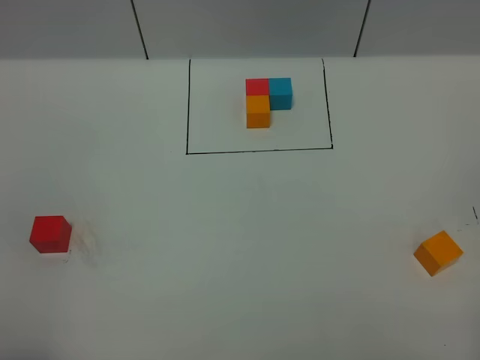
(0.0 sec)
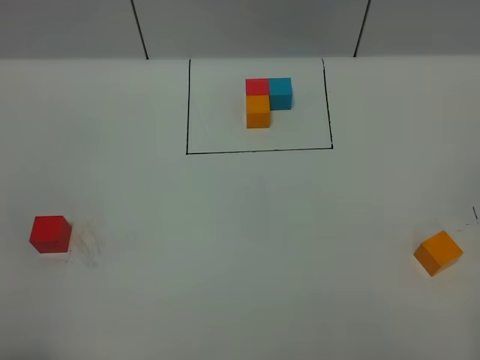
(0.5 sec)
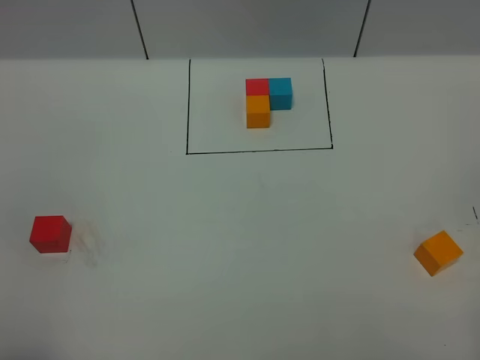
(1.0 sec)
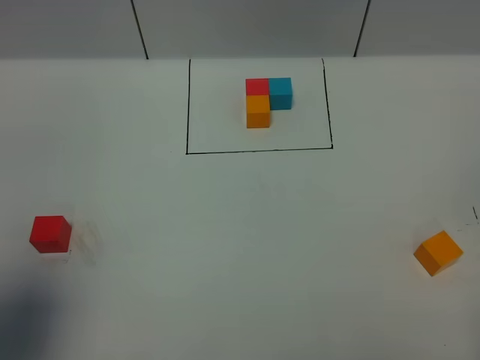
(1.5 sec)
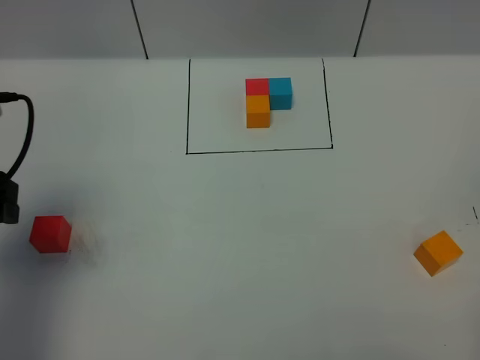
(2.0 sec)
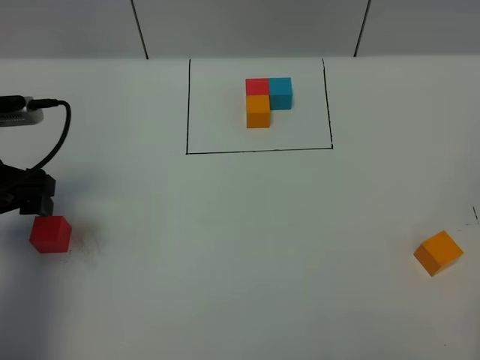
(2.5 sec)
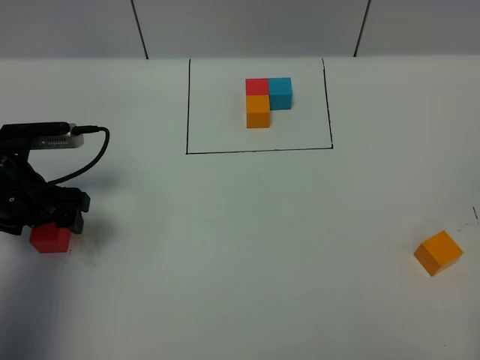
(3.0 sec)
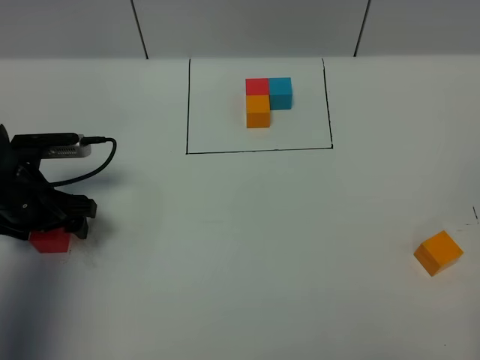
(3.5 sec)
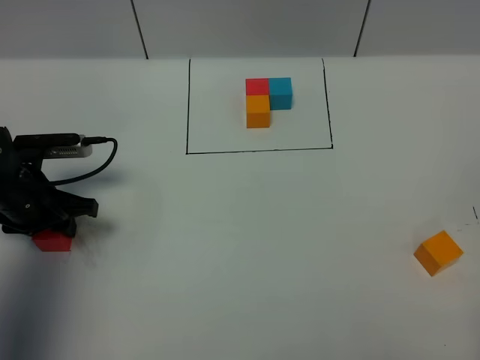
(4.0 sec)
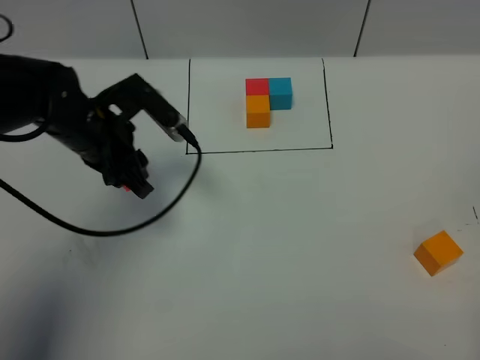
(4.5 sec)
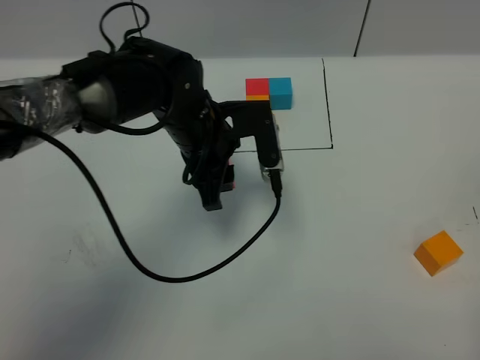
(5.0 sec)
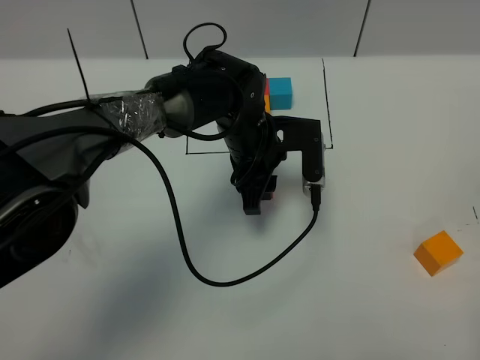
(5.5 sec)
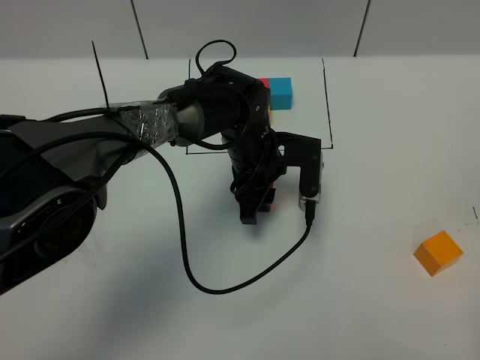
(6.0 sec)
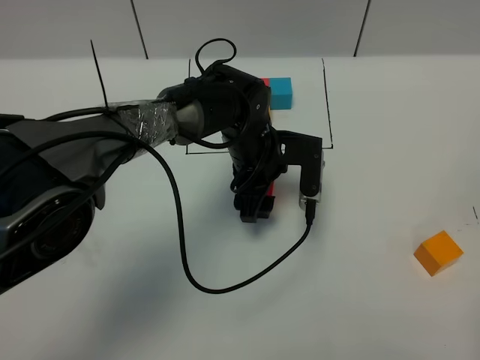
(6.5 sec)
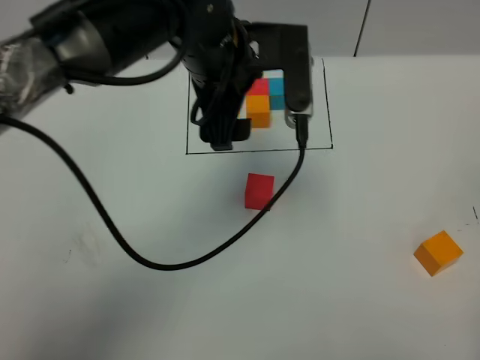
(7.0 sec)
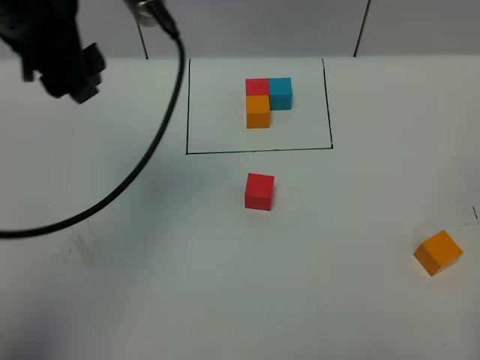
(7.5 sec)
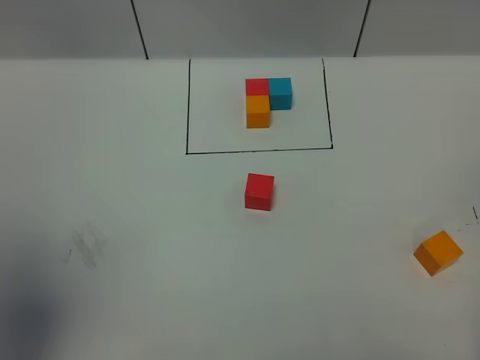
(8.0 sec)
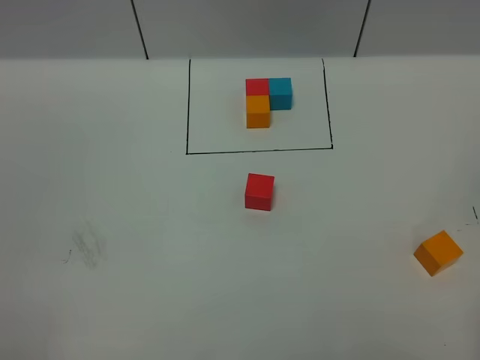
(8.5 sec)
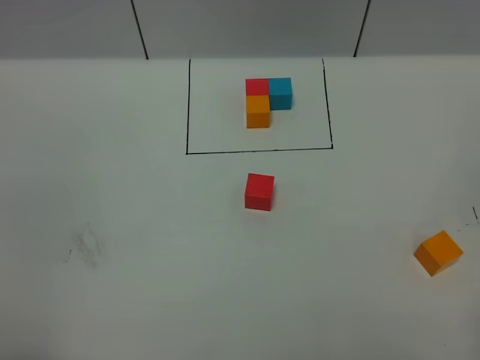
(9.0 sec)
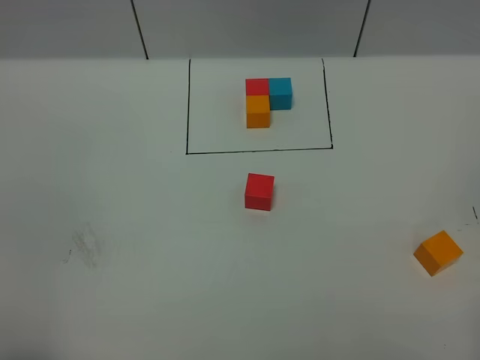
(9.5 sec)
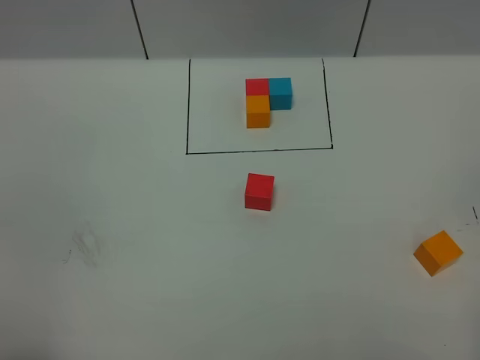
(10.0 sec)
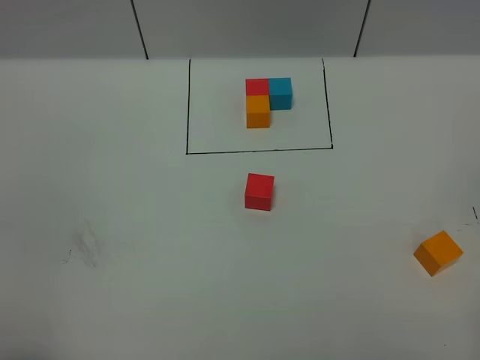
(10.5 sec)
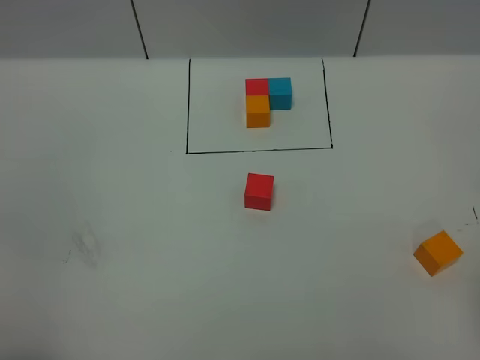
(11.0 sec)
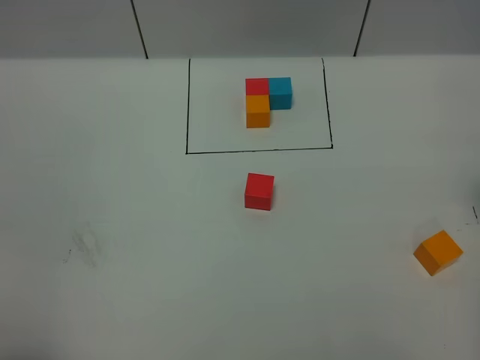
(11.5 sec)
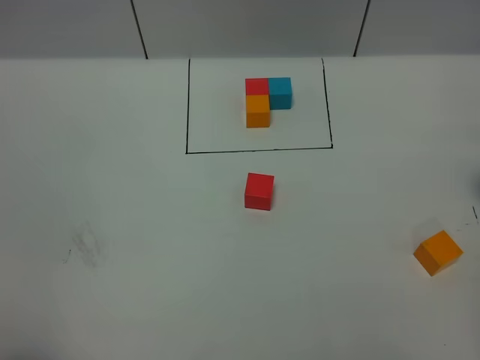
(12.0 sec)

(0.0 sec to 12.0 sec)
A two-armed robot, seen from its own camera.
Task of the whole recording: According to the building block template in front, assemble the scattered blocks together.
Step, 2.0 sec - 6.5 sec: Put the red cube in the center of the table.
0.0 sec - 2.0 sec: The left gripper moves forward, approximately 25 cm.
2.0 sec - 4.0 sec: The left gripper travels downward and forward by approximately 15 cm, and closes.
4.0 sec - 6.0 sec: The left gripper heads to the right, covering approximately 30 cm.
6.0 sec - 8.0 sec: The left gripper shifts roughly 50 cm upward, to the left and backward, and opens its fingers.
8.0 sec - 10.0 sec: The left gripper is displaced downward and backward by roughly 20 cm.

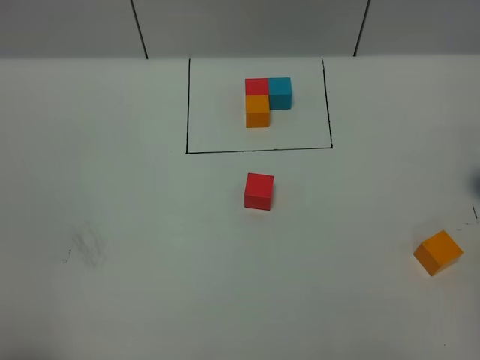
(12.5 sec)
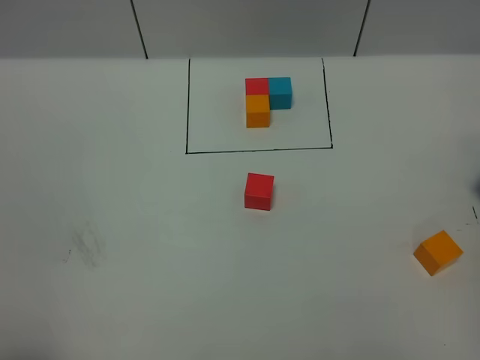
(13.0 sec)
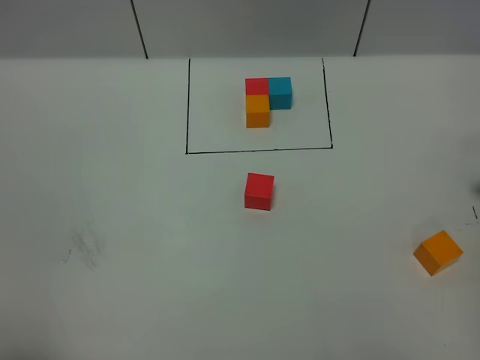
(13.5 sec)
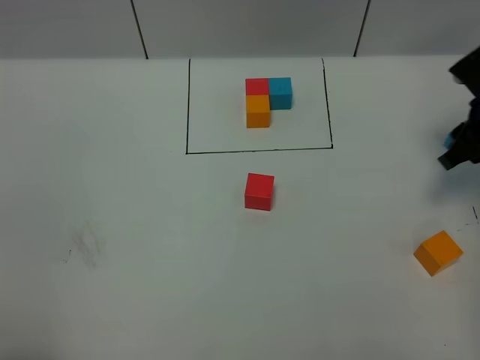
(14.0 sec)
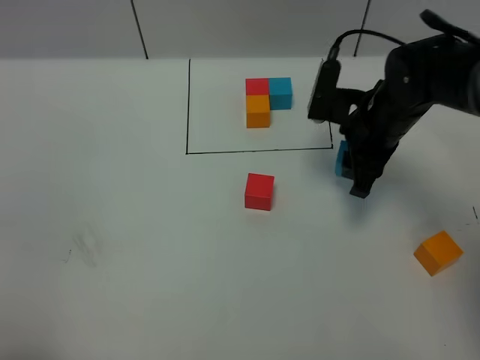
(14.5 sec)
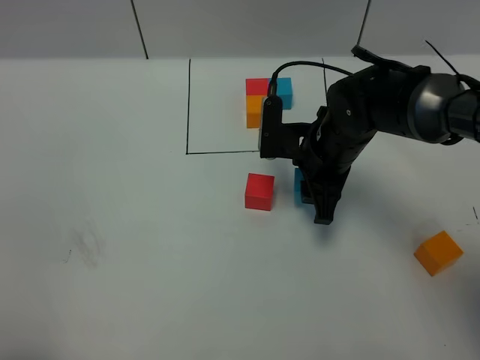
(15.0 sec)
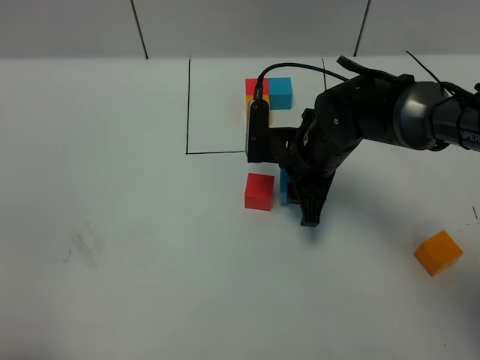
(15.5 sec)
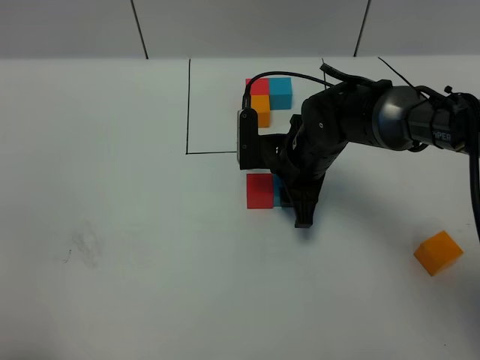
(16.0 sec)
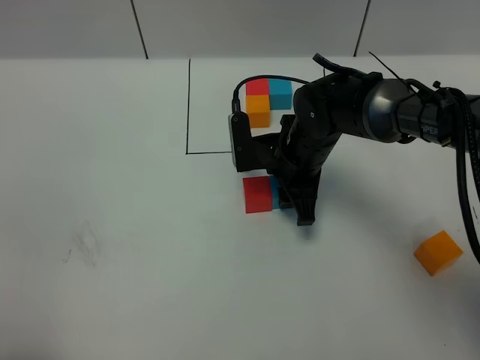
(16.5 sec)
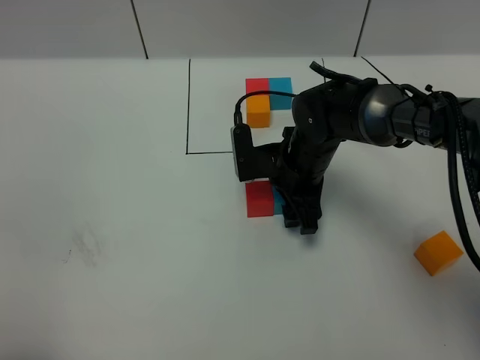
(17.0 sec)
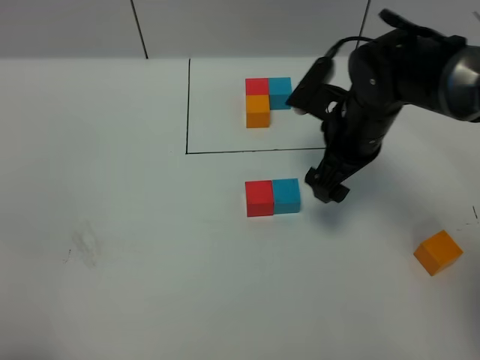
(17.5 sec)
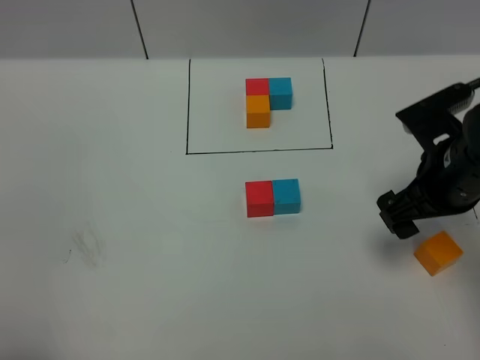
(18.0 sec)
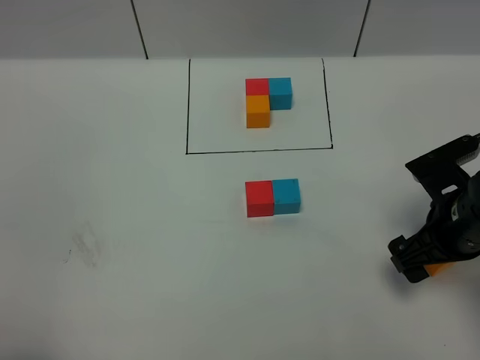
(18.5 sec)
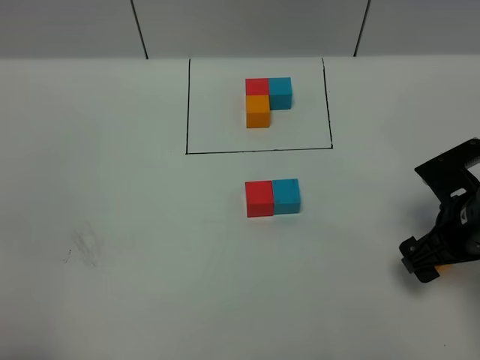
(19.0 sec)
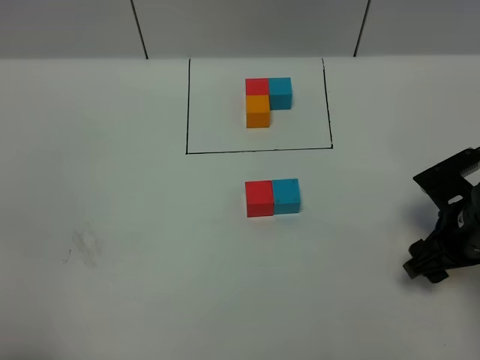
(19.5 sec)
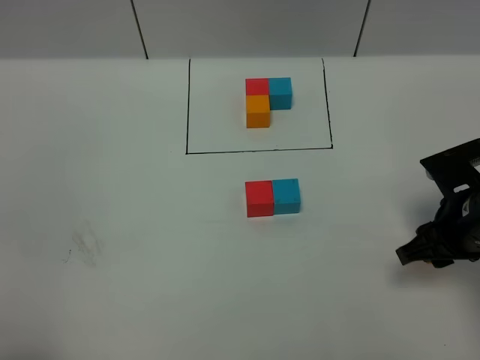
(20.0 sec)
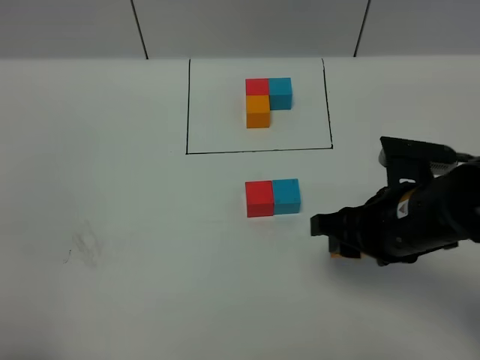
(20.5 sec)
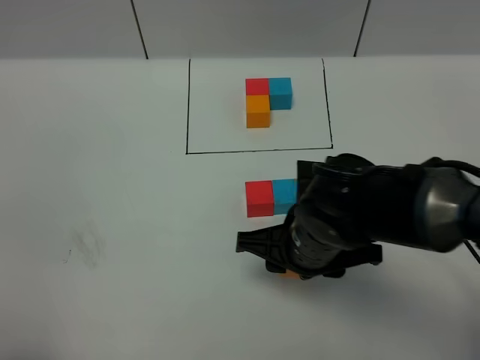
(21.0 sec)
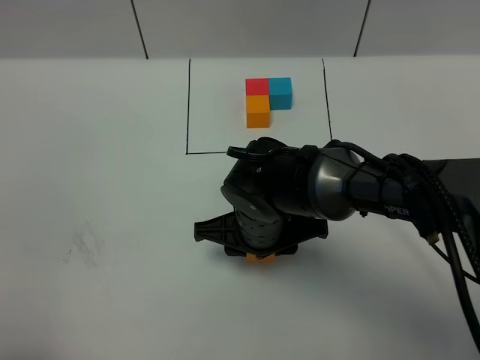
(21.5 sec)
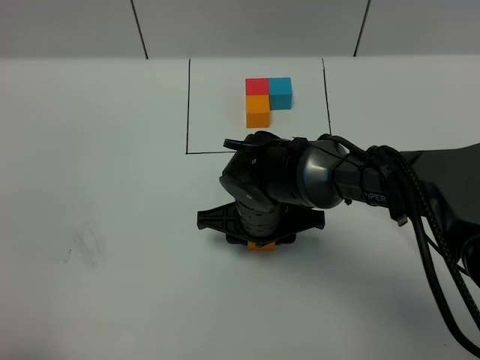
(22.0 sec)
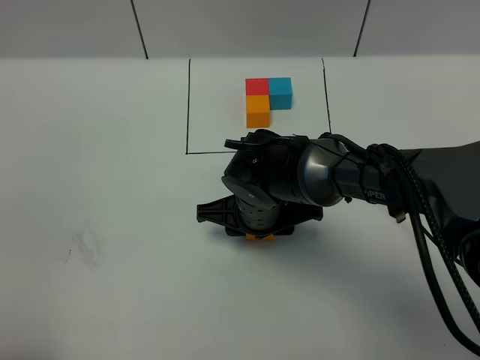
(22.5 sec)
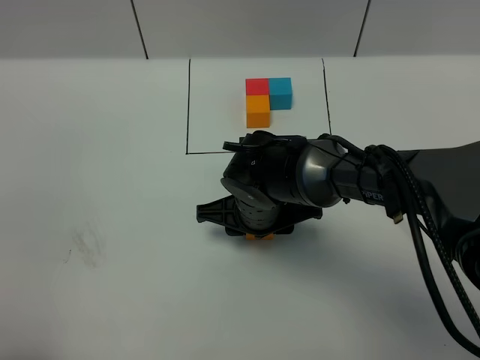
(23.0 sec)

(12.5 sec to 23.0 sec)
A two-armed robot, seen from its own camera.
Task of the whole recording: According to the building block template in front, assemble the scattered blocks together.
Step, 12.5 sec - 17.0 sec: Put the blue cube on the right of the red cube.
12.5 sec - 14.5 sec: The right gripper is displaced to the left by some 25 cm, and closes.
14.5 sec - 16.5 sec: The right gripper heads to the left and downward, covering some 10 cm.
16.5 sec - 19.0 sec: The right gripper travels to the right and backward by about 20 cm, and opens up.
19.0 sec - 21.0 sec: The right gripper is displaced to the left by about 20 cm, and closes.
21.0 sec - 23.0 sec: The right gripper heads forward and to the left, covering about 10 cm.

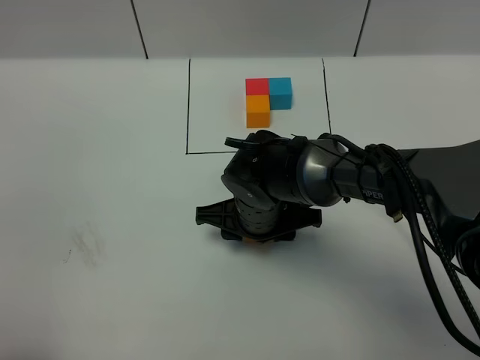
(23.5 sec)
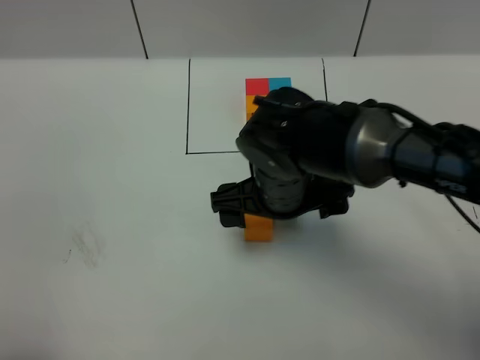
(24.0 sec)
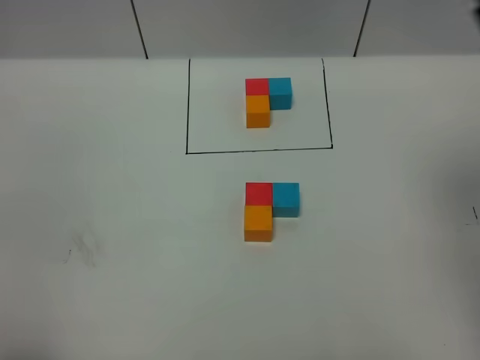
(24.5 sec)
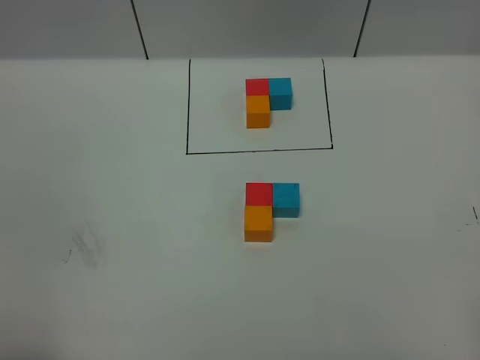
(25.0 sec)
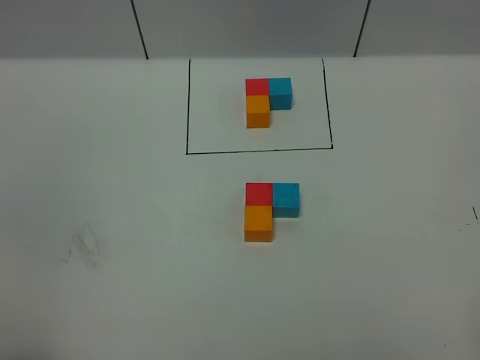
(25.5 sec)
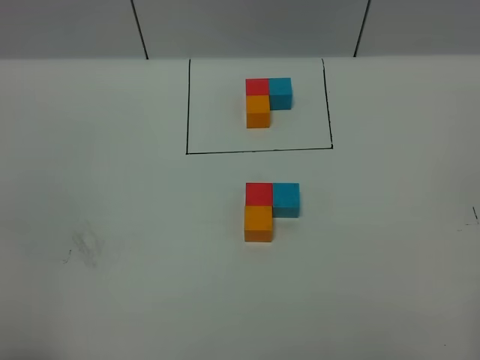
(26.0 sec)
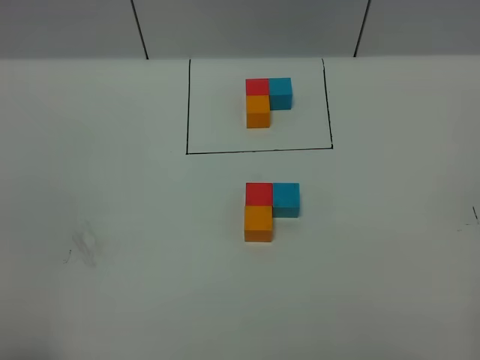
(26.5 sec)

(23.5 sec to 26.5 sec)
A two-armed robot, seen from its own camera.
Task of the whole recording: According to the building block template in front, assemble the scattered blocks together.
23.5 sec - 25.0 sec: The right gripper moves upward, to the right and backward, about 60 cm, and opens up.
